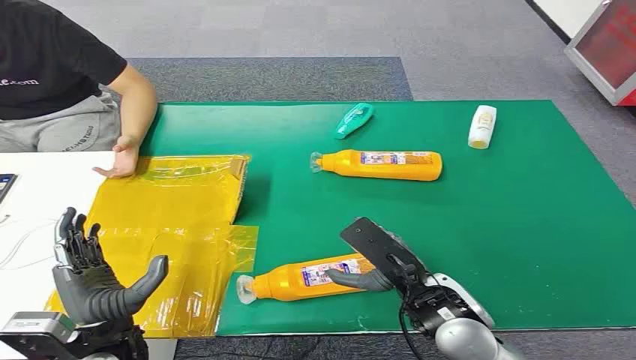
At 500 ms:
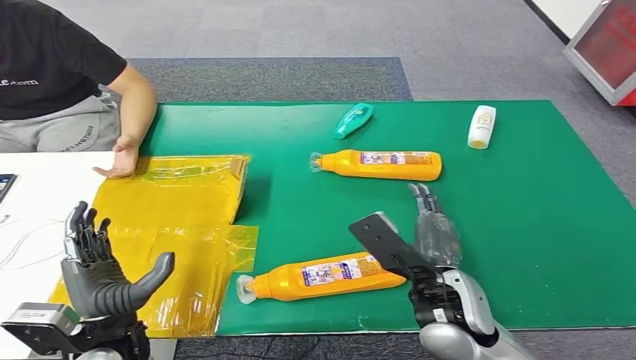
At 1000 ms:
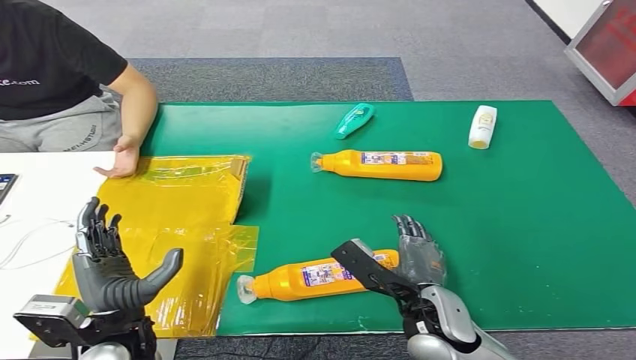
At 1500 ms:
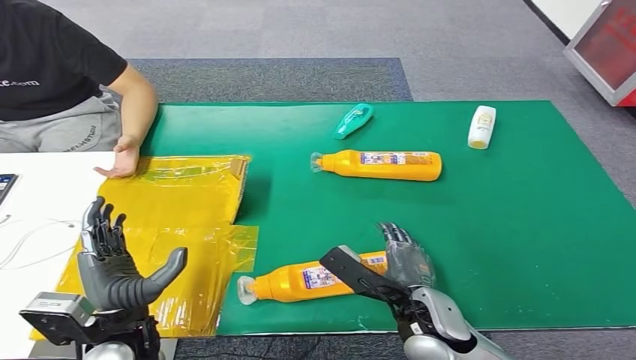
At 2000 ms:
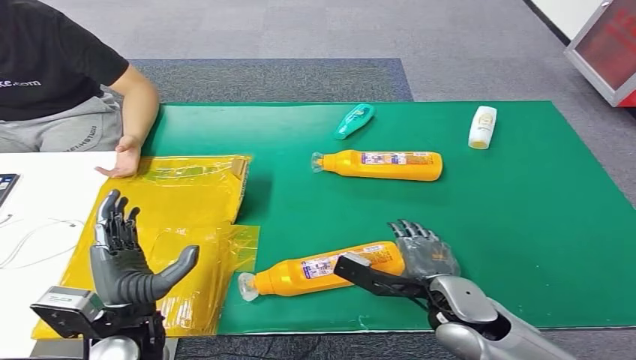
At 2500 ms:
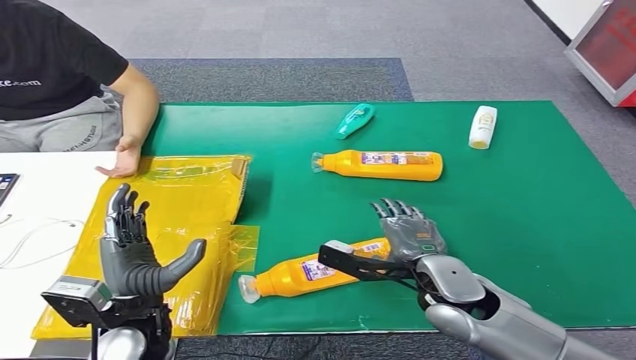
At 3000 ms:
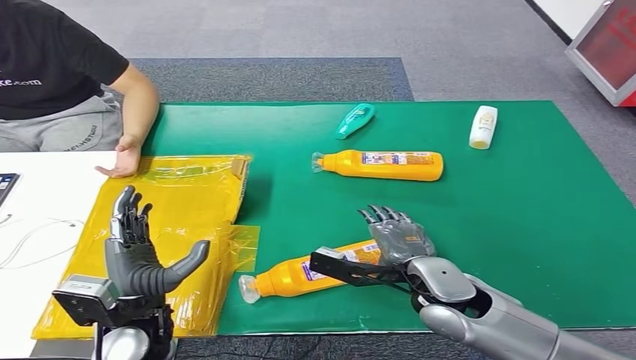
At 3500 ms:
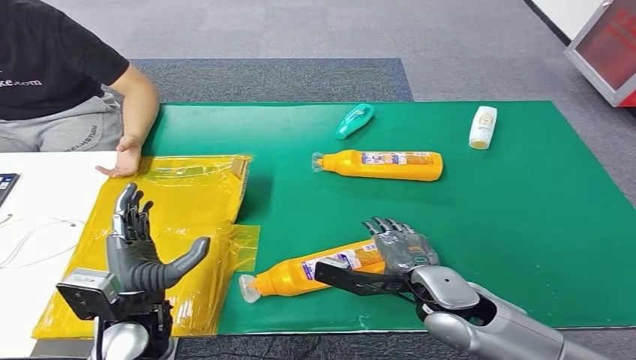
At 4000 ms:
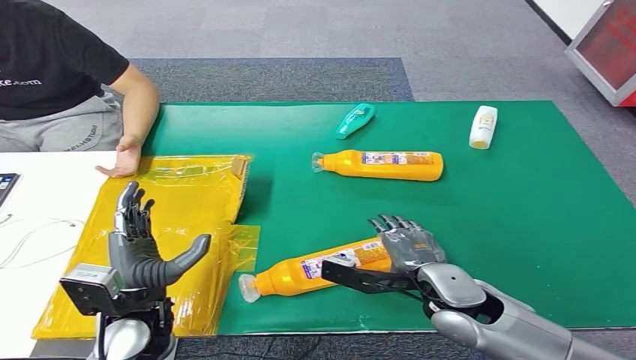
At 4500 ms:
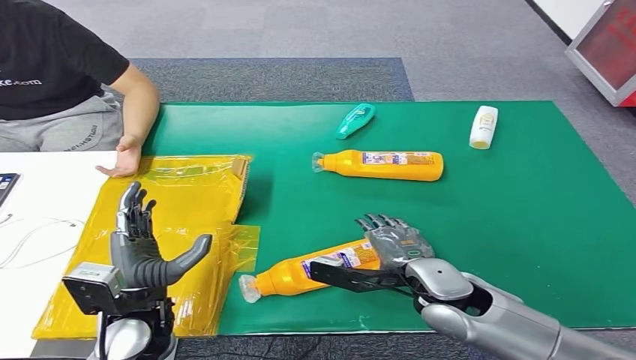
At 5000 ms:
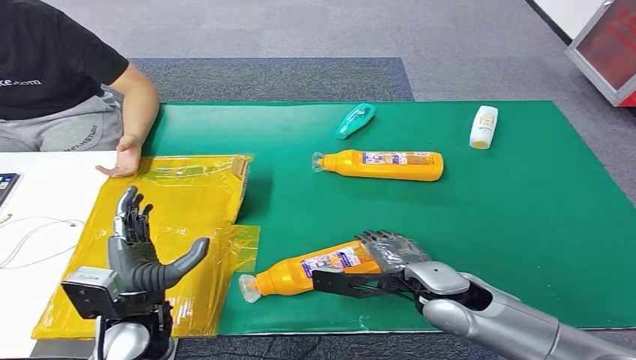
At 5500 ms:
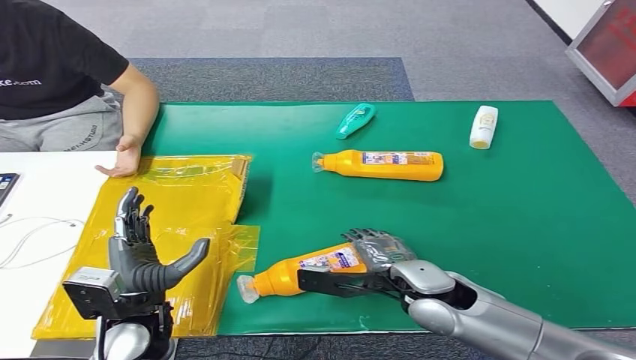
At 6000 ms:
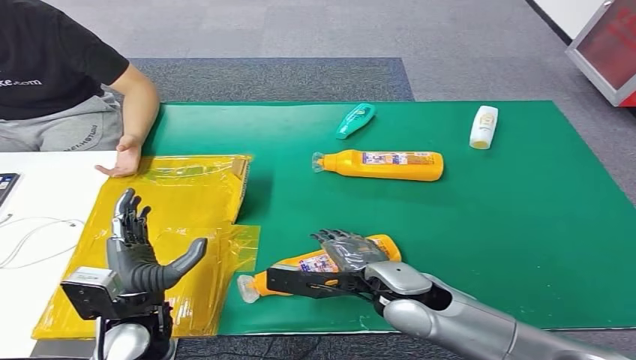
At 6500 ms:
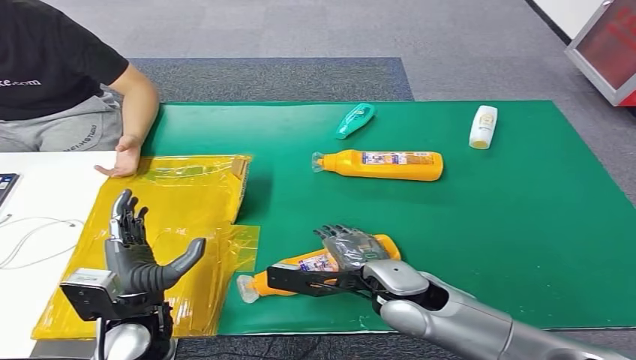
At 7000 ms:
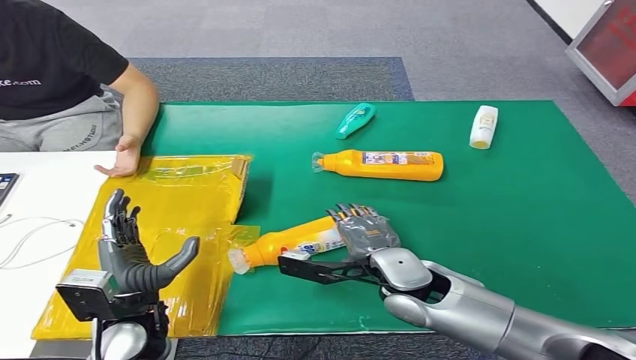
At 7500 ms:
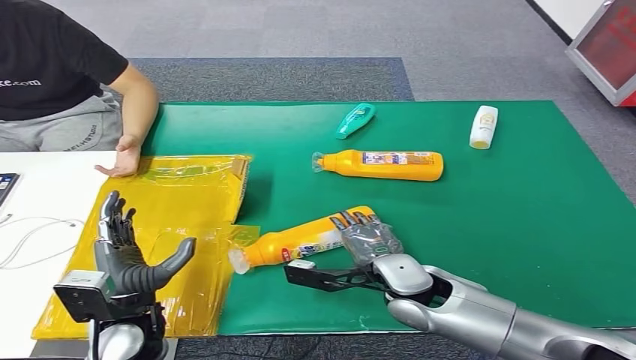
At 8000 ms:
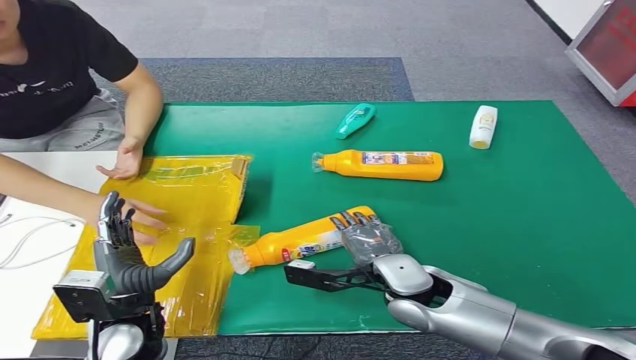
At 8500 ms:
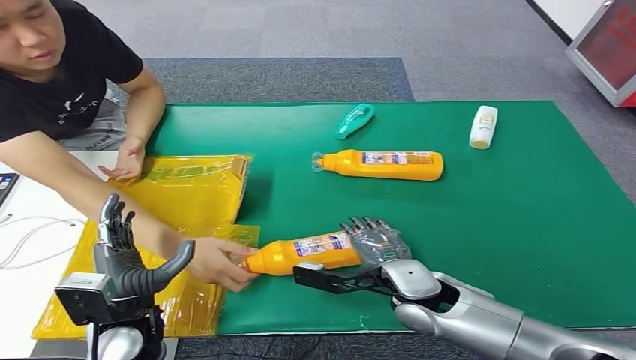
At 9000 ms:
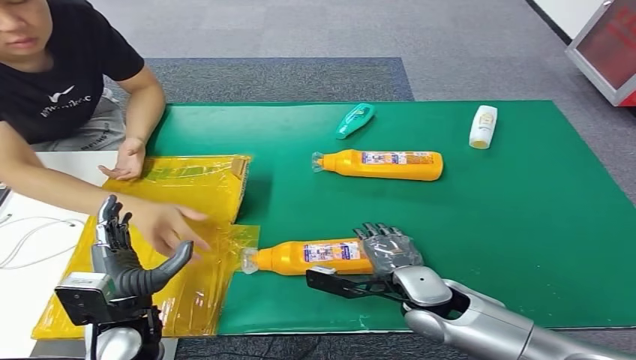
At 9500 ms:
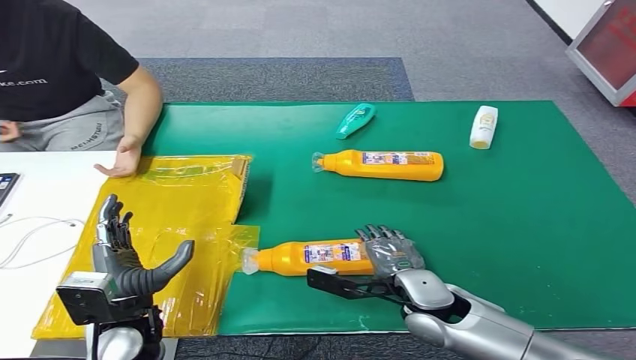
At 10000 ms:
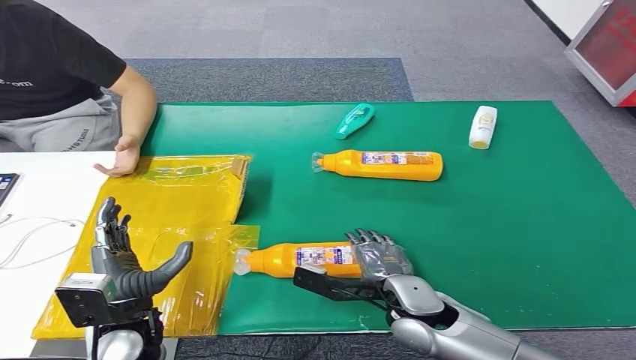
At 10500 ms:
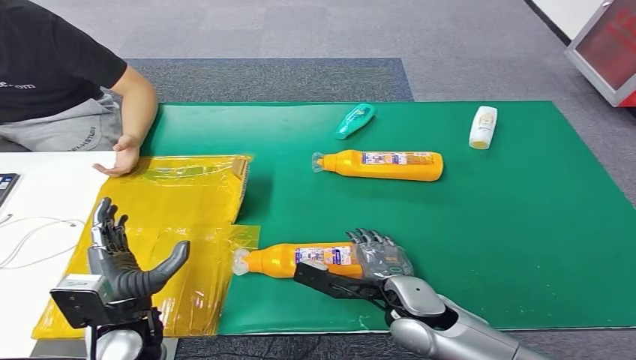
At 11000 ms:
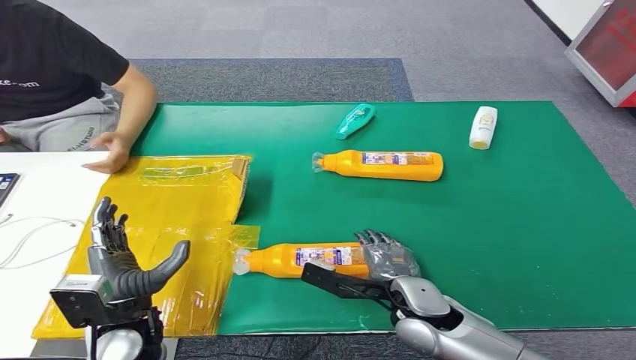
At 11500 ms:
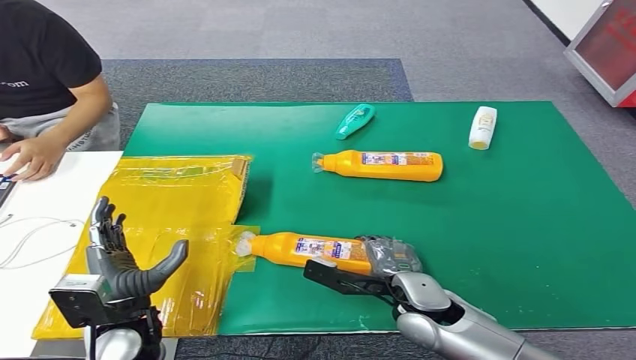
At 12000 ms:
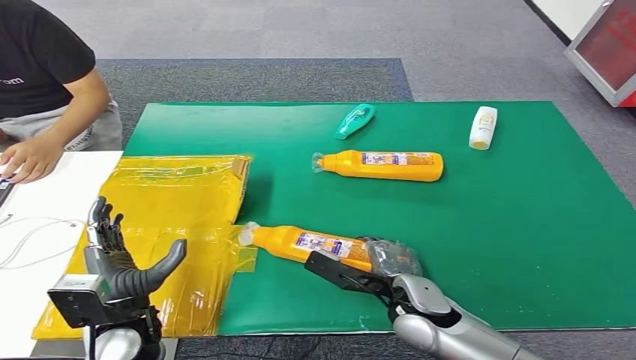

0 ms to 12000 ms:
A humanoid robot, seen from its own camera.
2000 ms to 4000 ms: The hands stay close to where they were, moving slightly.
4000 ms to 6000 ms: The right hand shifts roughly 5 cm to the left.
8000 ms to 10000 ms: The hands make only small movements.
10000 ms to 12000 ms: The hands stay close to where they were, moving slightly.

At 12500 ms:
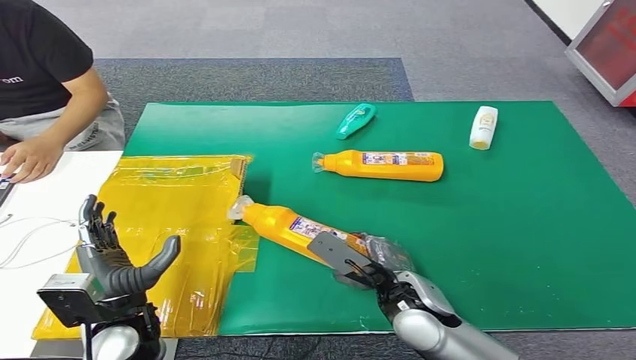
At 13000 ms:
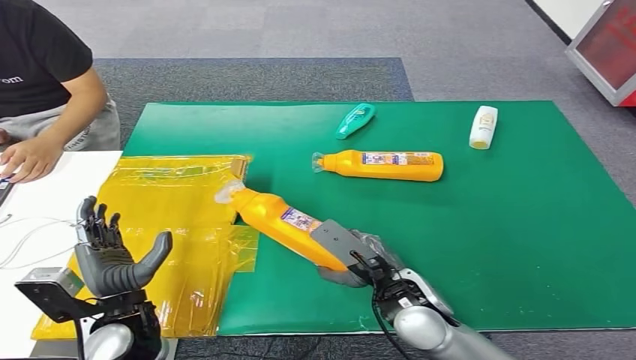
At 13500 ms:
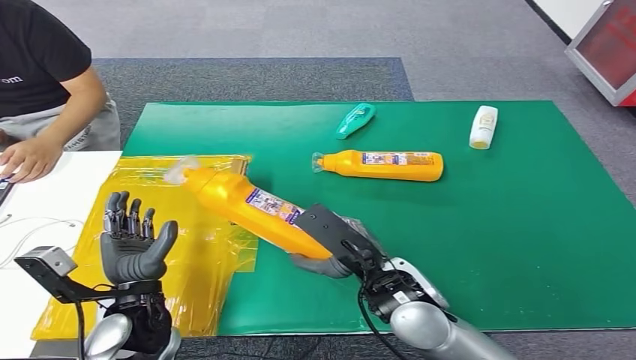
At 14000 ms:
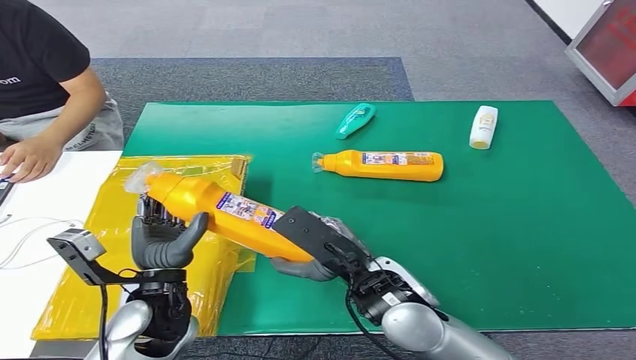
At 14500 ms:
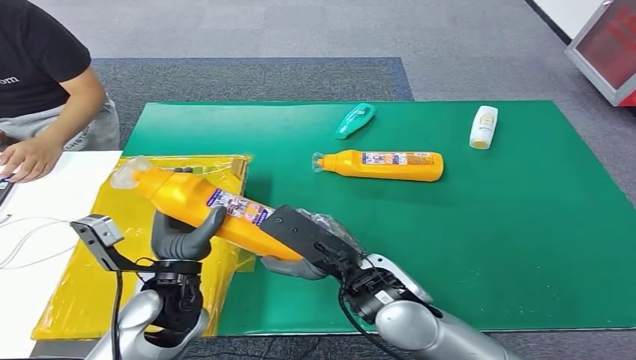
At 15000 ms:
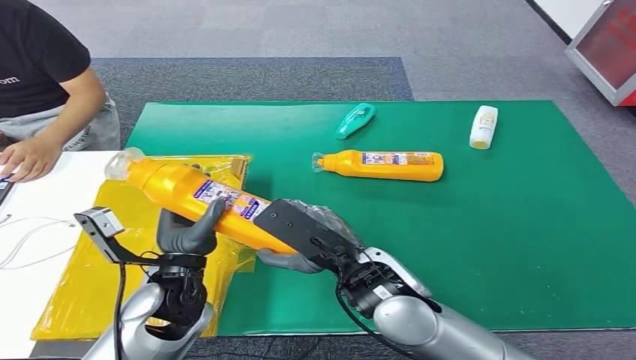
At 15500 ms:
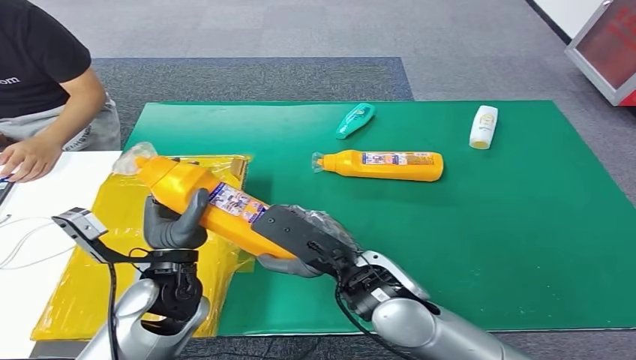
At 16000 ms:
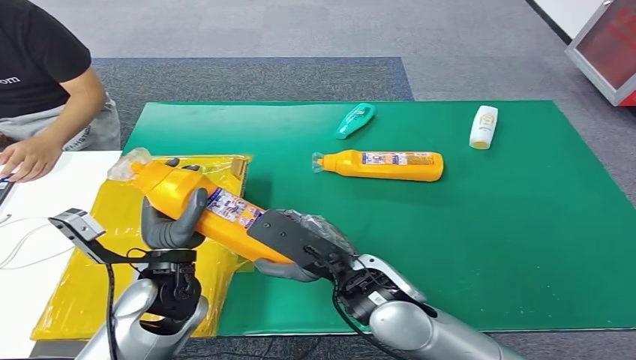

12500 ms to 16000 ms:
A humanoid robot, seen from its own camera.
Step, 13500 ms to 16000 ms: Turn the bottle to the front side.
12500 ms to 14500 ms: The left hand is displaced to the right by roughly 5 cm. Meanwhile the right hand moves upward, about 10 cm.
14500 ms to 16000 ms: There are only small adjustments of the hands.
